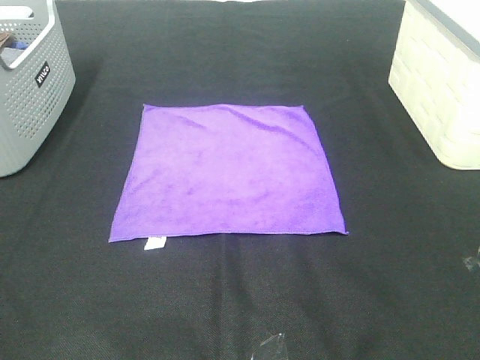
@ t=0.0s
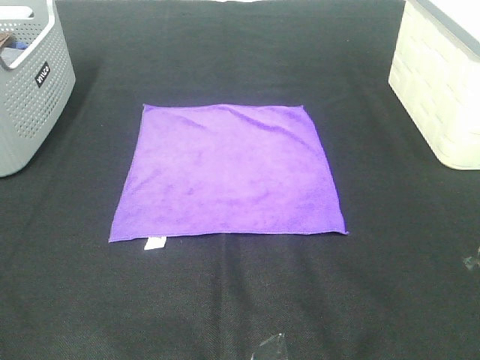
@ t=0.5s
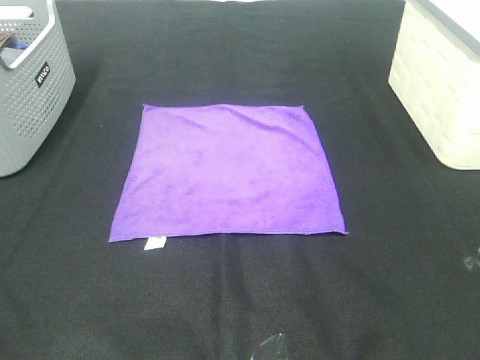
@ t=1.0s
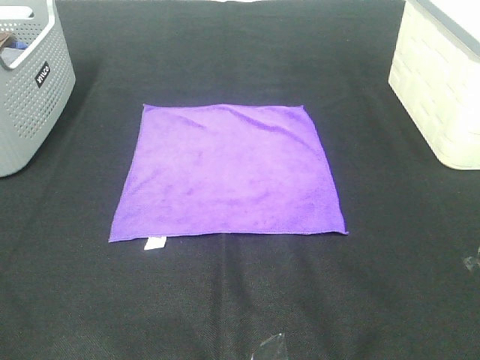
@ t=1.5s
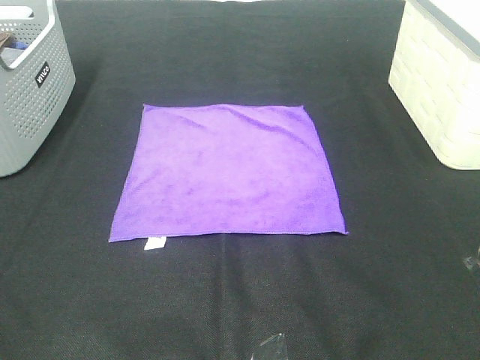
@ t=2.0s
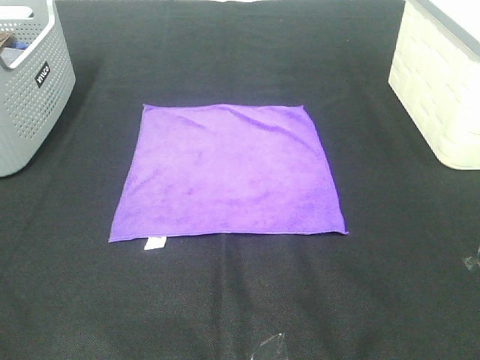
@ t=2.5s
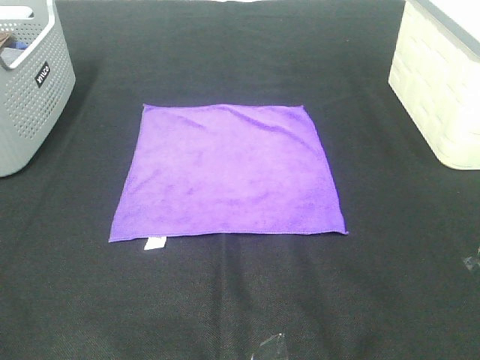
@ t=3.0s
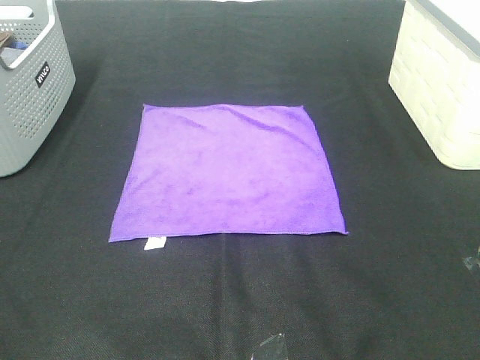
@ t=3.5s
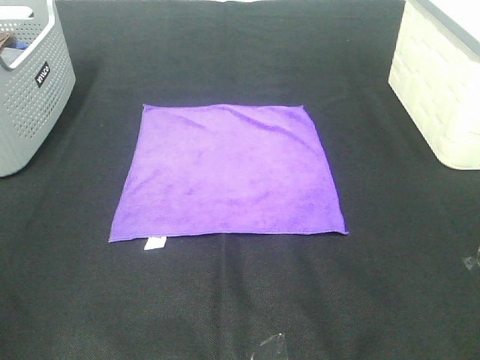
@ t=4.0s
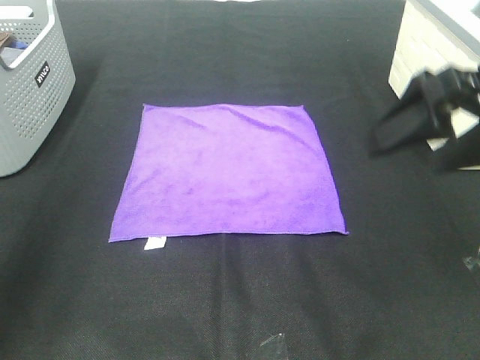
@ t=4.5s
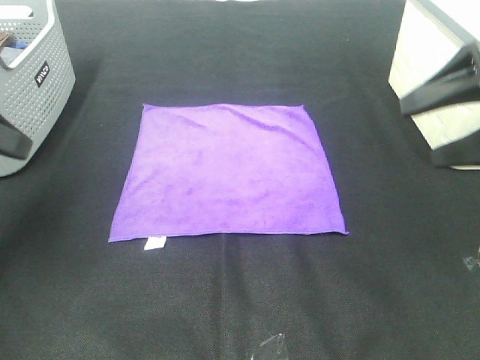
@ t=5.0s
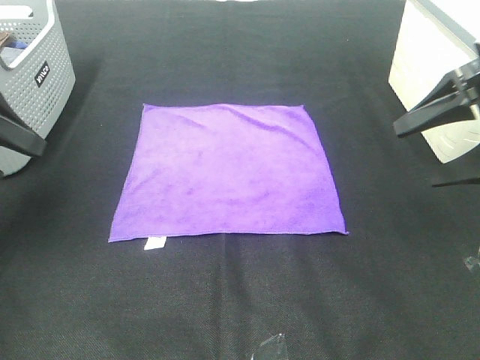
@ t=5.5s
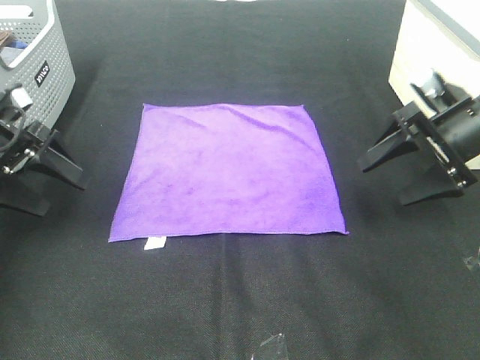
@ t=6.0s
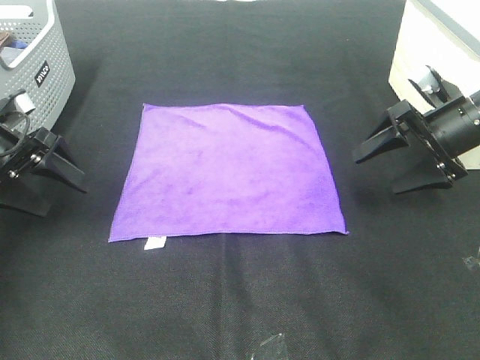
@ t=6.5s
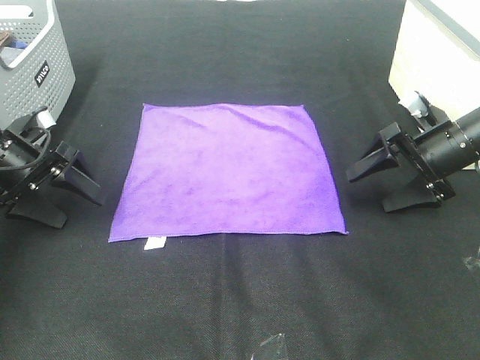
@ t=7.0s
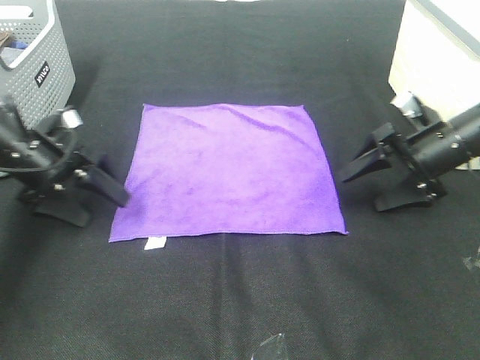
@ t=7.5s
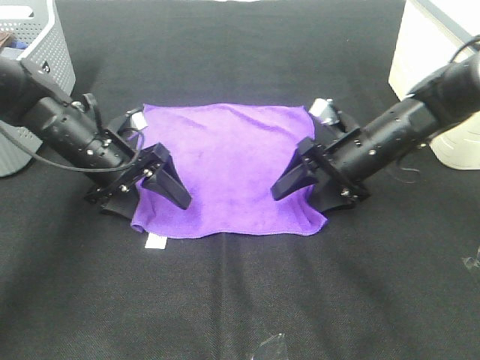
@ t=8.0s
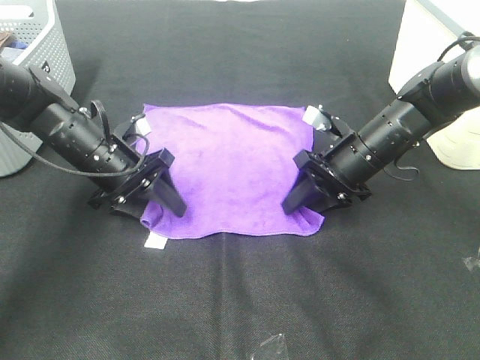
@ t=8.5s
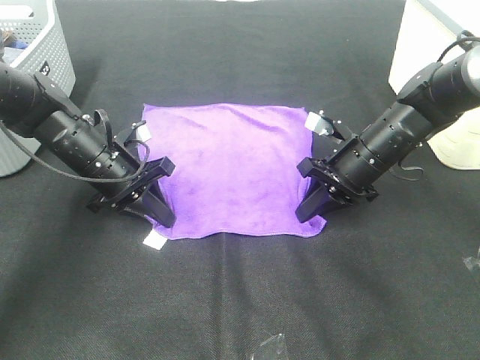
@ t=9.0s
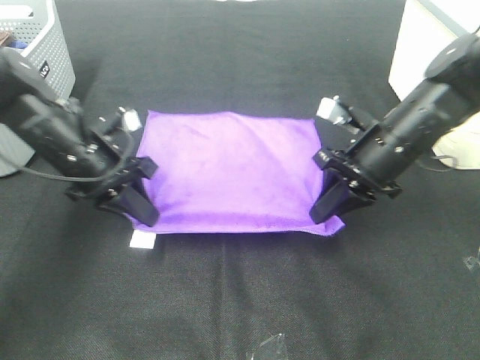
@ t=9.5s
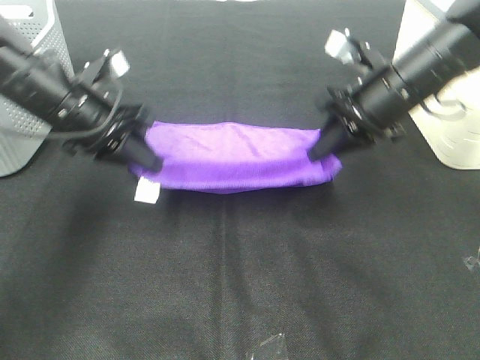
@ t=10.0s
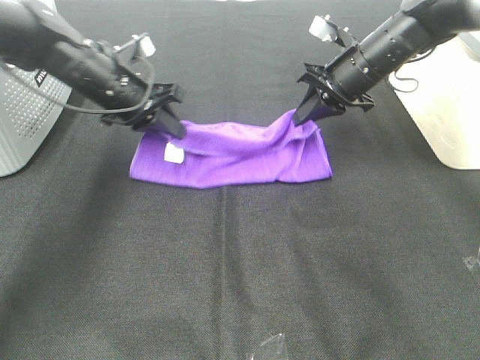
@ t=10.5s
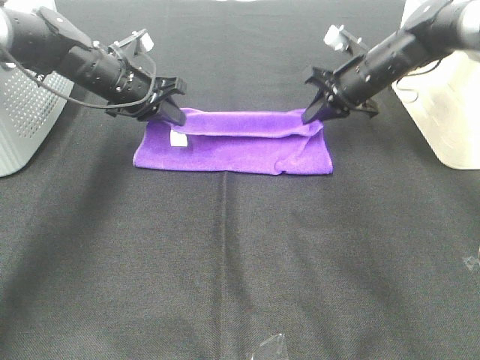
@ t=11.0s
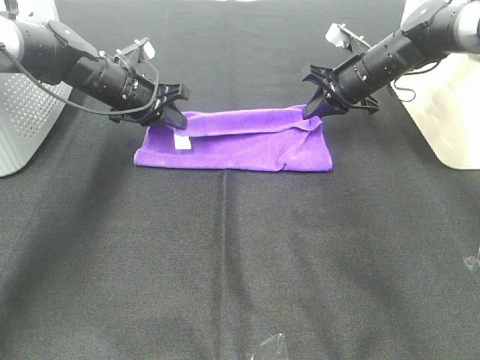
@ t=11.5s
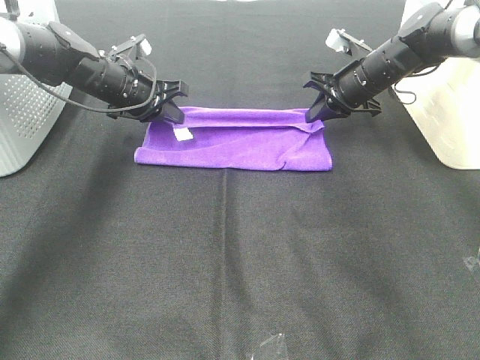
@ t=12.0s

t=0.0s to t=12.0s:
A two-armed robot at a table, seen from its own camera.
Task of the whole recording: Fold towels.
Step, t=0.0s to t=9.0s: Left hand: grab the bottom left corner of purple towel.
Step, t=0.0s to t=9.0s: Right hand: grab the bottom right corner of purple towel.
t=0.0s to t=2.0s: The two grippers keep their place.
t=4.0s to t=6.0s: Both grippers travel together forward and downward, approximately 35 cm.
t=6.0s to t=8.0s: The right gripper shifts about 15 cm to the left and downward, while the left gripper heads to the right and downward, covering about 15 cm.
t=8.0s to t=10.0s: The grippers both shift upward by roughly 10 cm. The right gripper closes, while the left gripper closes.
t=10.0s to t=12.0s: Both grippers travel together forward and downward, about 15 cm.

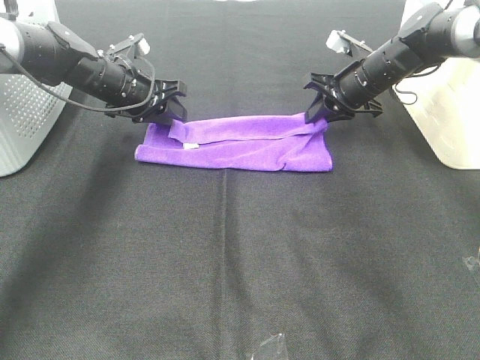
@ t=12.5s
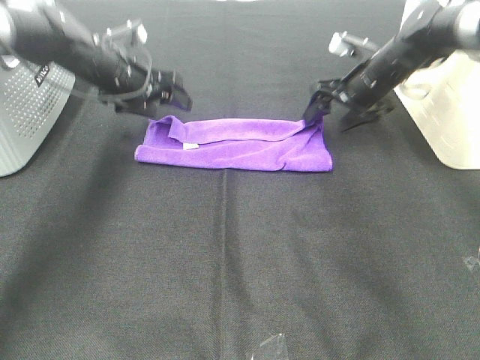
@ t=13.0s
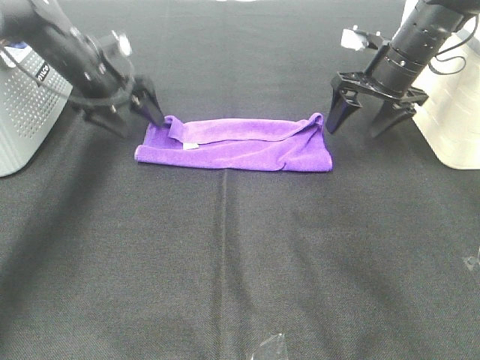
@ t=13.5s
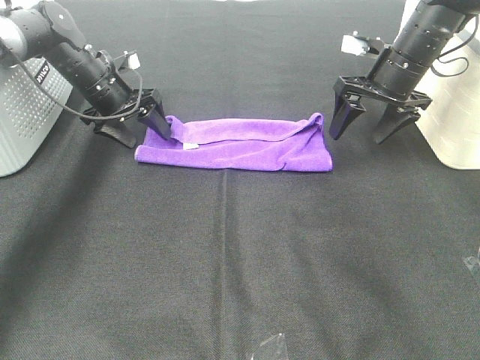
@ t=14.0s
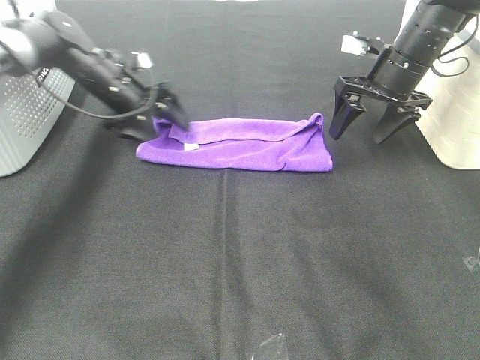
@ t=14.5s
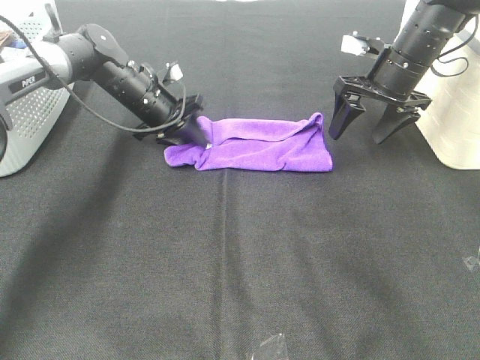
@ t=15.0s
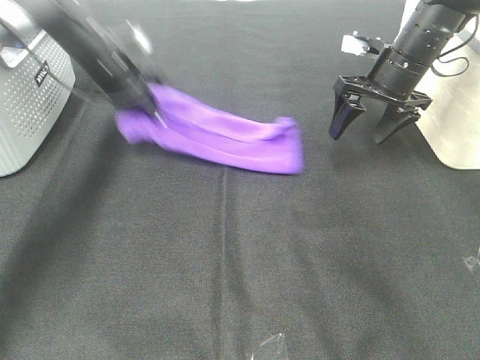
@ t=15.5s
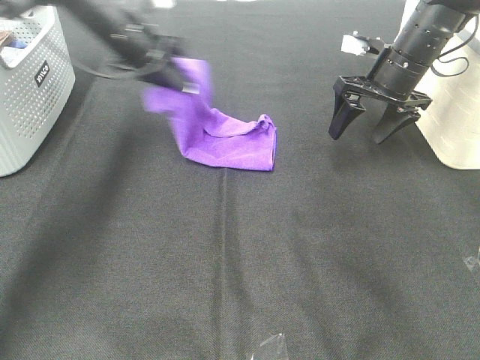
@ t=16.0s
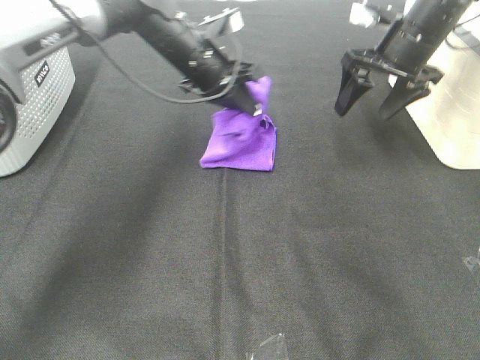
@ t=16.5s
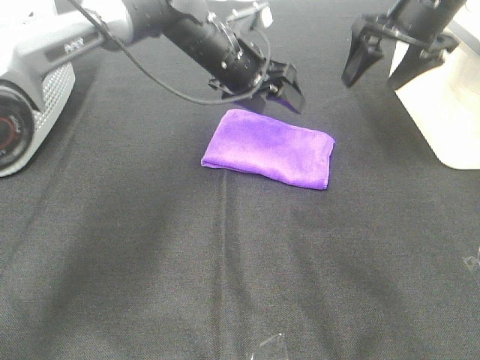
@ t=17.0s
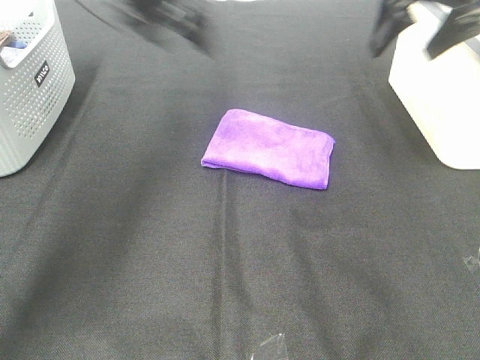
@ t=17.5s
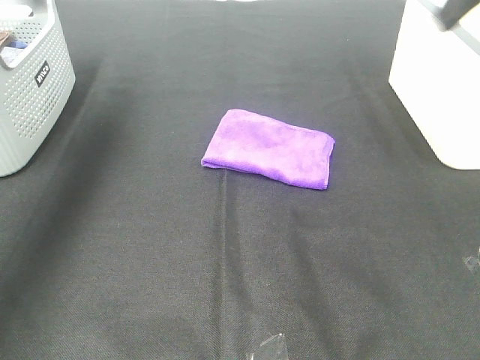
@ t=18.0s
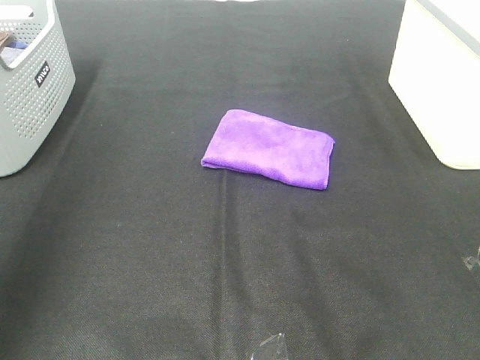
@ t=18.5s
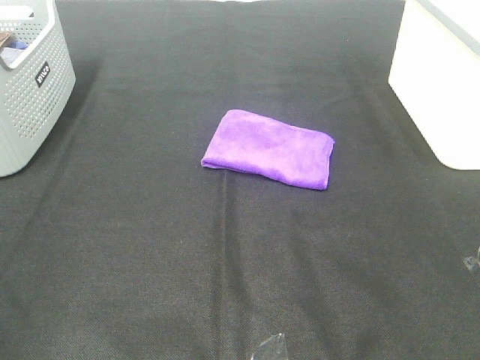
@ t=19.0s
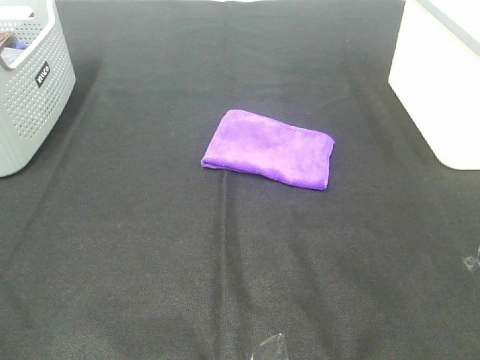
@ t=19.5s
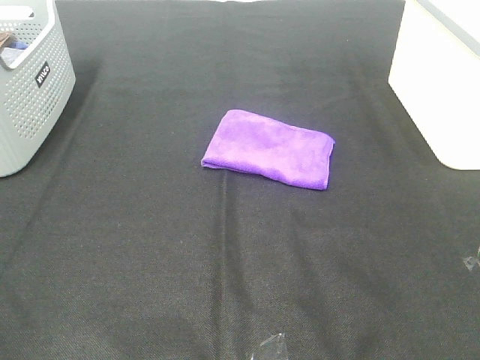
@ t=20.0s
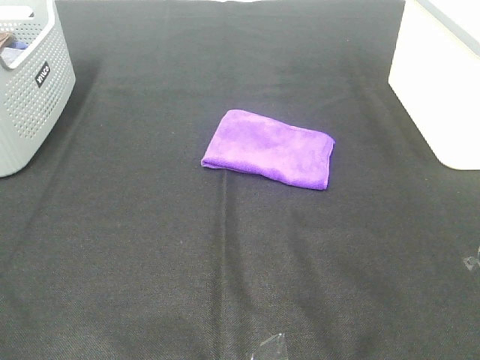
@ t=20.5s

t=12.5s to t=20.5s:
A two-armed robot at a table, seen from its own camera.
Task of the whole recording: Fold towels.
Step, t=12.5s to t=16.5s: Left hand: fold the purple towel from left to right.
t=12.5s to t=14.5s: The right gripper heads upward, covering some 5 cm, and opens up; the left gripper opens up.
t=14.5s to t=16.5s: The left gripper is displaced to the right and upward by approximately 15 cm, and closes its fingers.
t=16.5s to t=18.5s: The right gripper shifts some 40 cm backward and upward; the left gripper goes roughly 50 cm backward, to the left and upward, and opens.
t=18.5s to t=20.5s: The left gripper shifts about 20 cm backward and downward.
